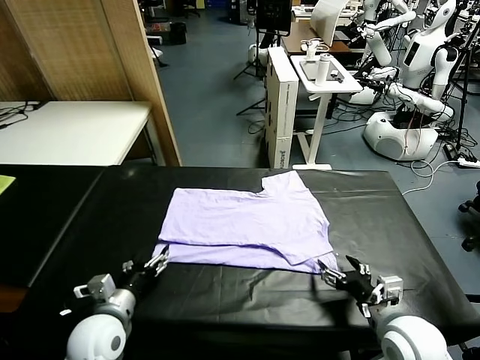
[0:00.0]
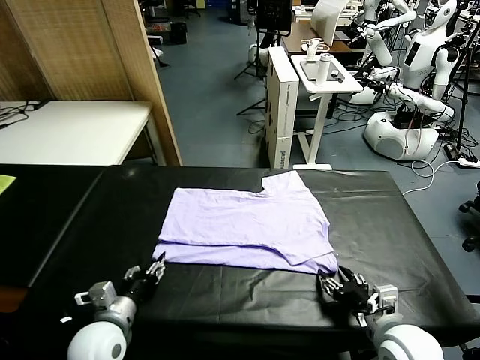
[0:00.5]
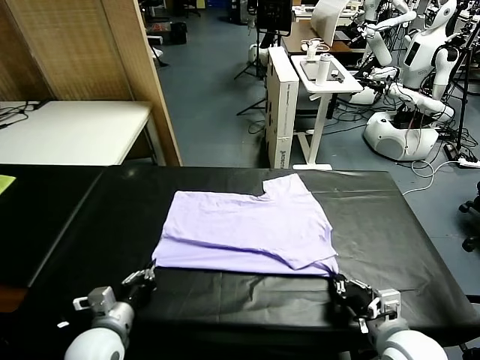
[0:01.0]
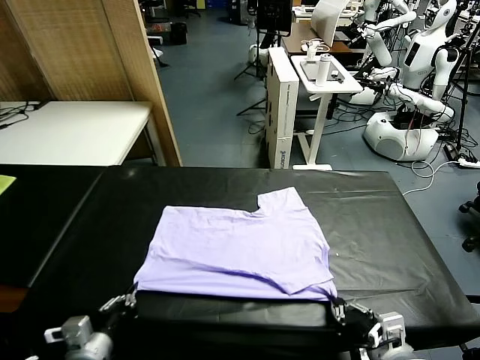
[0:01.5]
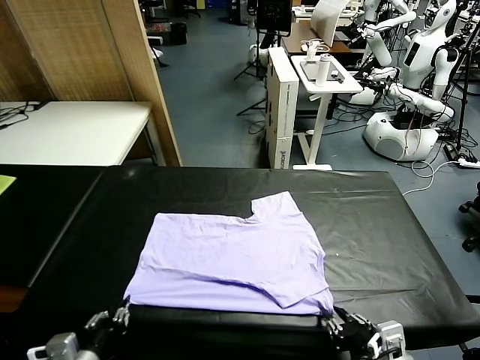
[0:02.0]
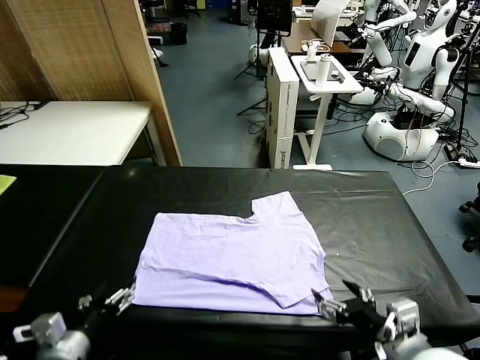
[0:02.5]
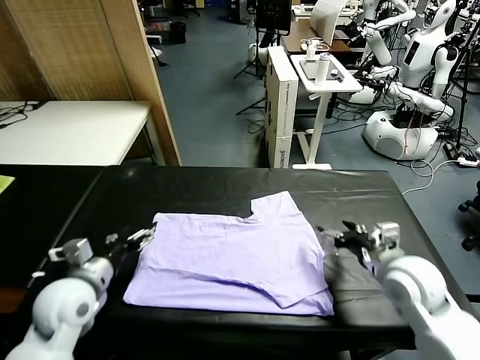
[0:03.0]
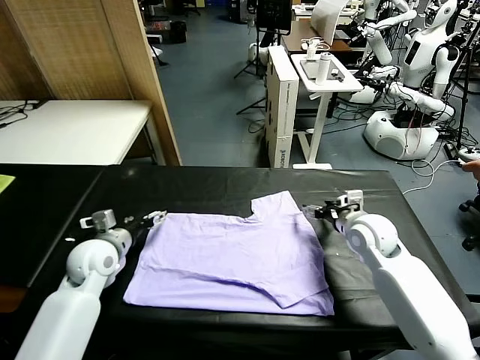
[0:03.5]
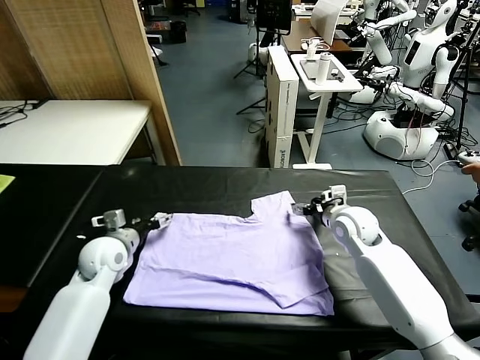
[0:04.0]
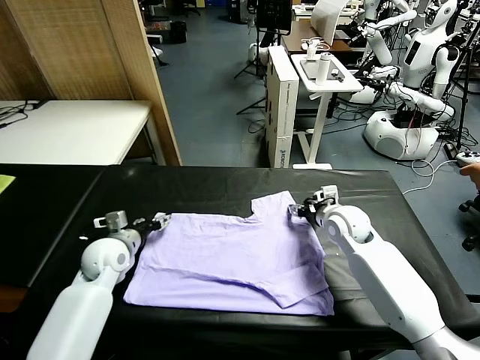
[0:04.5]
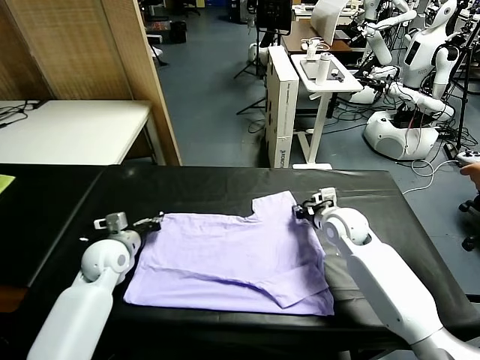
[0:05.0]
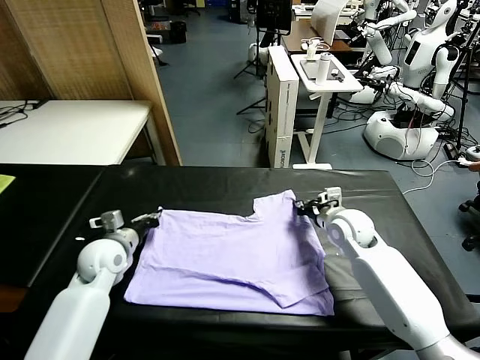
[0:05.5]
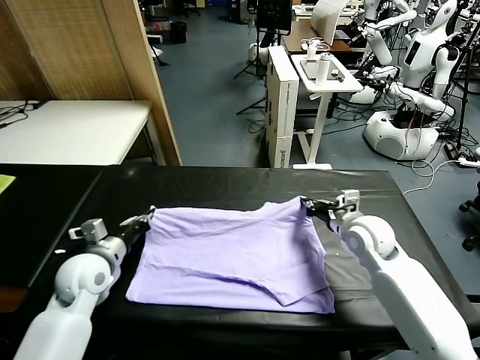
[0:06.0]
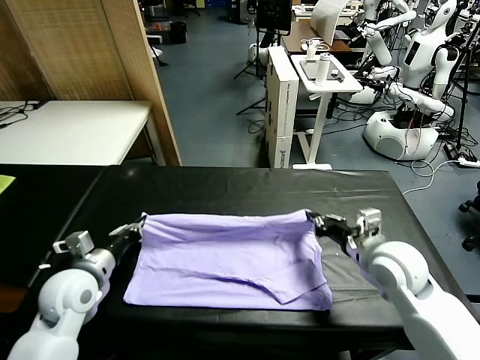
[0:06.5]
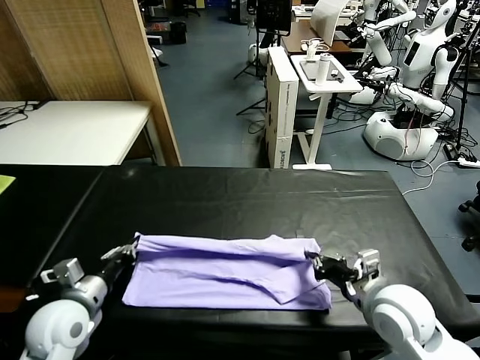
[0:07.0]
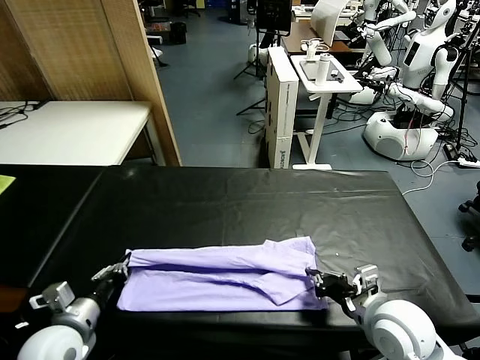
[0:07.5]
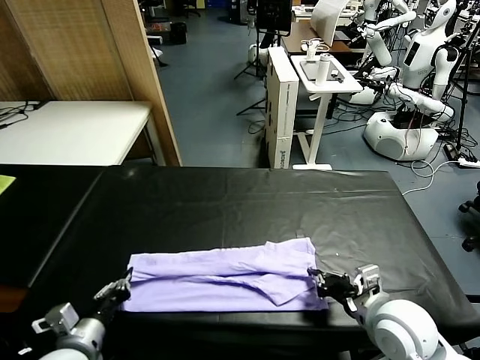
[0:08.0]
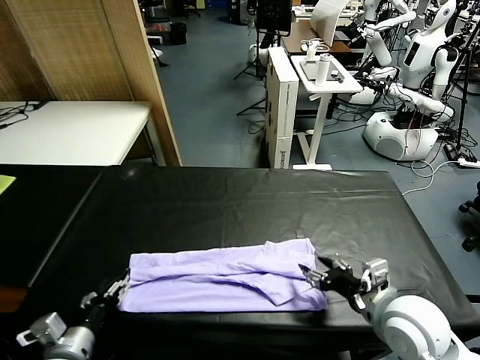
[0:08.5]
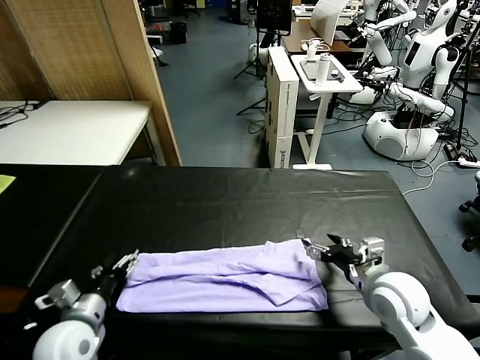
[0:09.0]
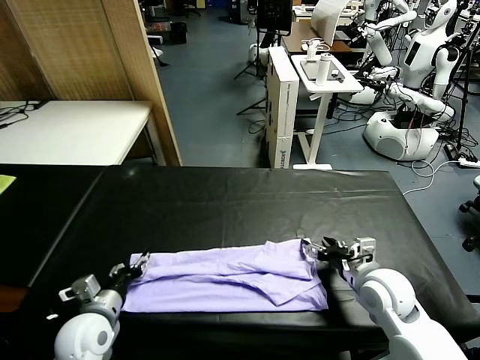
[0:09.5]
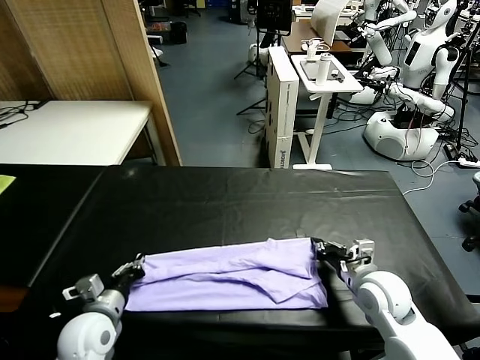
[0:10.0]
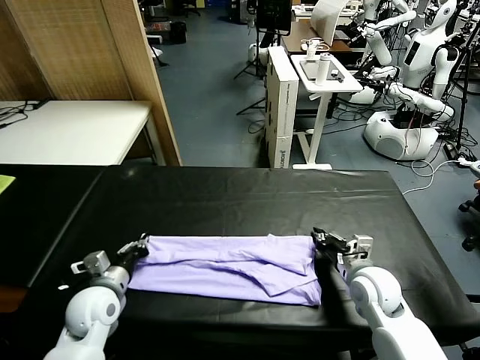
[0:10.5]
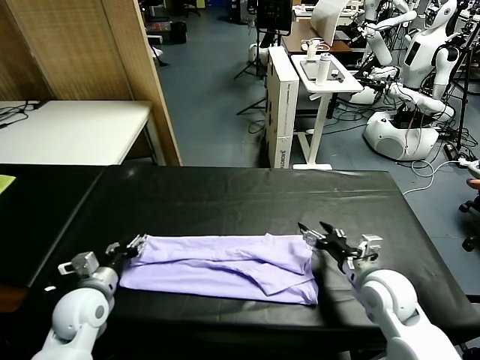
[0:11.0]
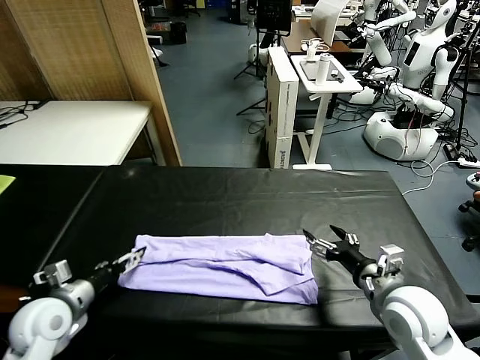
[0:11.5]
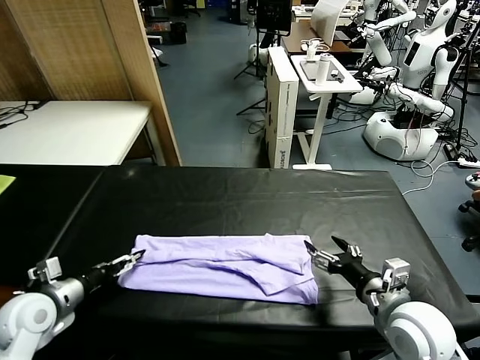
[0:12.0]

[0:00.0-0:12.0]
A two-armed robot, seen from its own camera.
Task of the whole recording: fold and organize the clothes.
Step, 0:00.0 to 0:02.0: Drag the clothes downward with both gripper.
Step, 0:02.5 to 0:05.0: use both grippers simultaneously to clamp the upper edge of the clothing fabric.
Step, 0:05.5 to 0:08.5: use both grippers to drag the upper edge of the fabric backward and fold it over the lower edge.
0:00.0 to 0:02.0: The right gripper goes some 10 cm backward and upward, and closes, then reopens. Meanwhile the left gripper is displaced backward by approximately 10 cm, and closes up.
0:02.0 to 0:04.0: The grippers both shift forward by approximately 30 cm.
0:04.0 to 0:06.0: The left gripper moves backward, approximately 5 cm, and closes. The right gripper travels backward by about 10 cm, and closes up.
0:06.0 to 0:08.0: The two grippers go some 15 cm backward.
0:08.0 to 0:10.0: The right gripper goes some 10 cm forward and downward, and opens, then closes again. The left gripper heads forward, covering about 10 cm, and opens and closes again.
0:10.0 to 0:12.0: The left gripper travels to the left by about 10 cm, and opens, while the right gripper travels backward and upward by roughly 10 cm, and opens up.

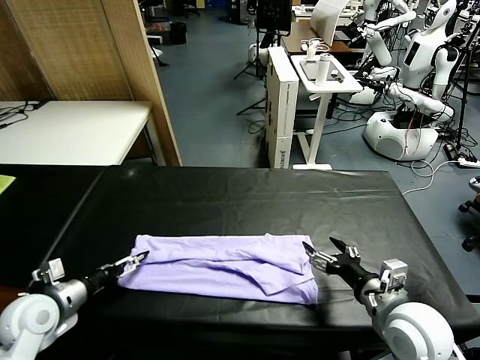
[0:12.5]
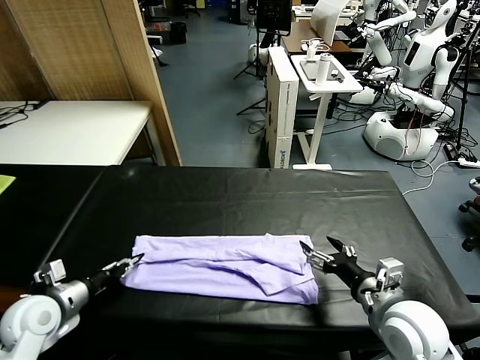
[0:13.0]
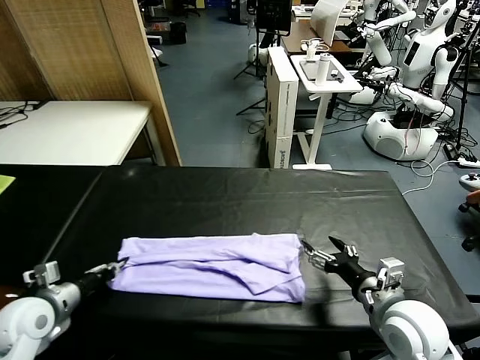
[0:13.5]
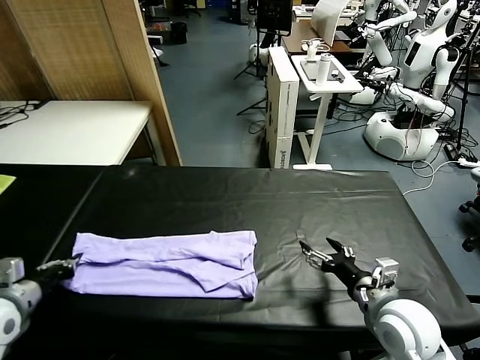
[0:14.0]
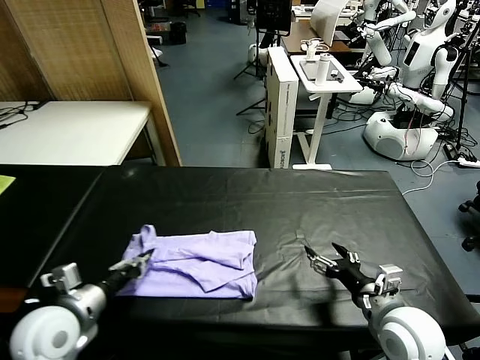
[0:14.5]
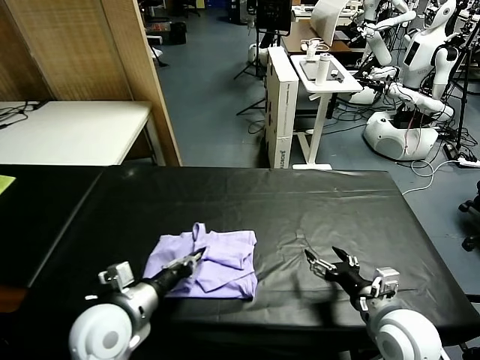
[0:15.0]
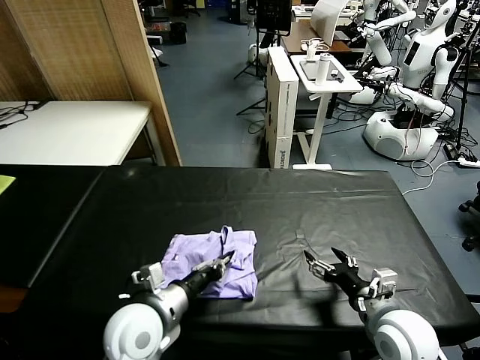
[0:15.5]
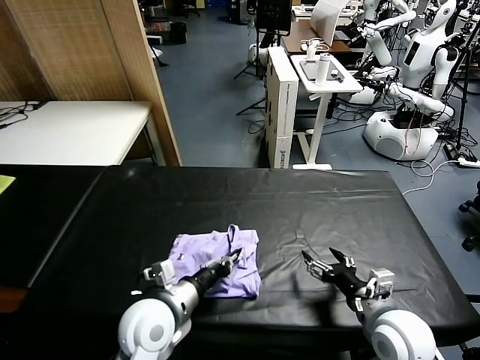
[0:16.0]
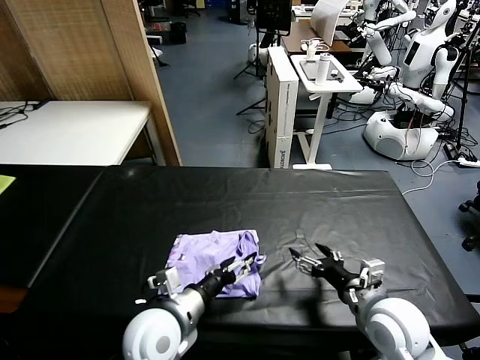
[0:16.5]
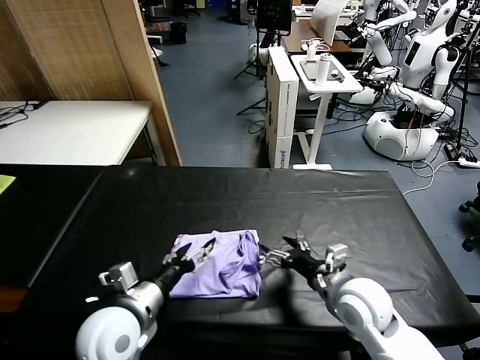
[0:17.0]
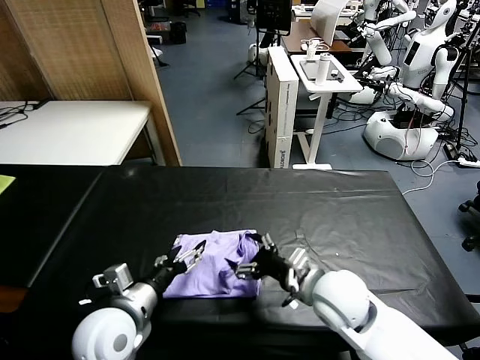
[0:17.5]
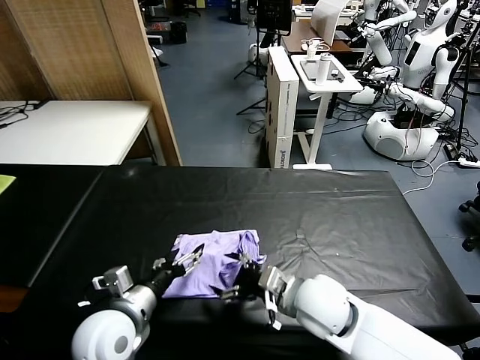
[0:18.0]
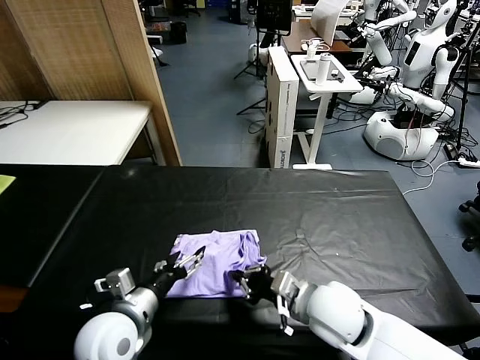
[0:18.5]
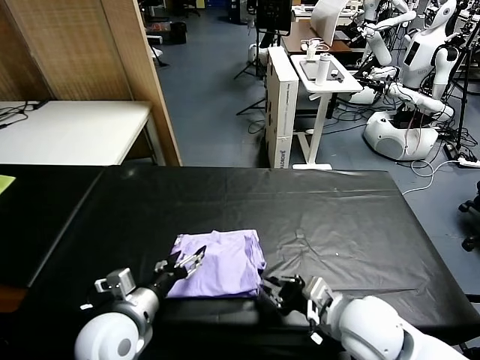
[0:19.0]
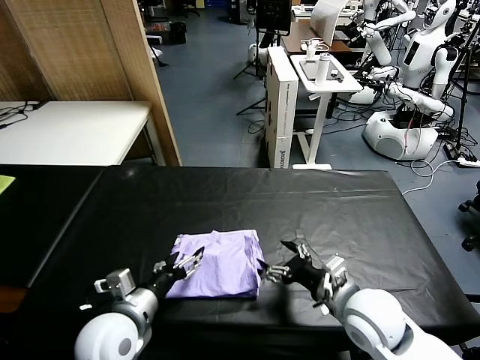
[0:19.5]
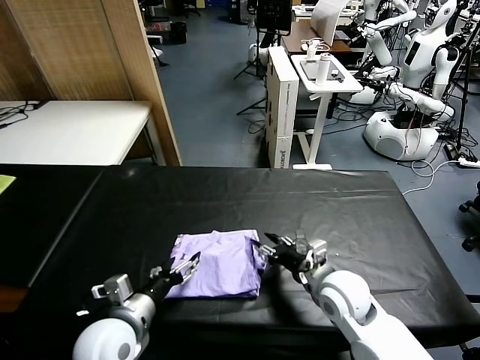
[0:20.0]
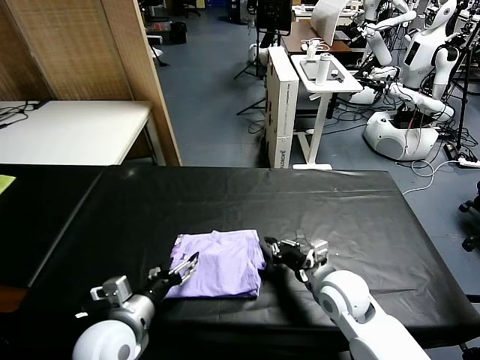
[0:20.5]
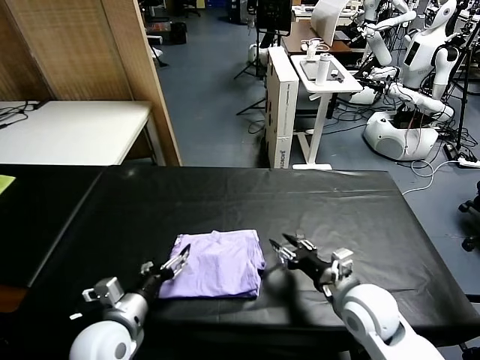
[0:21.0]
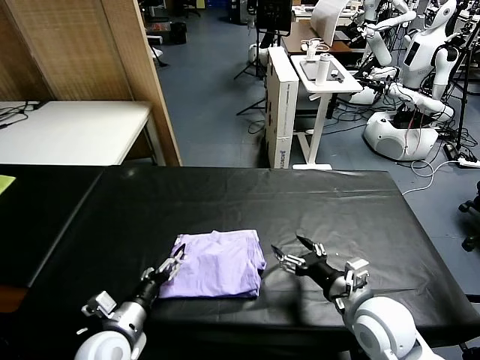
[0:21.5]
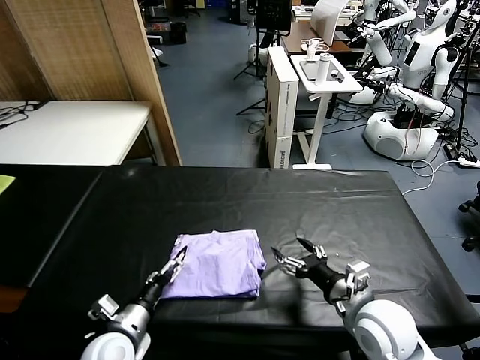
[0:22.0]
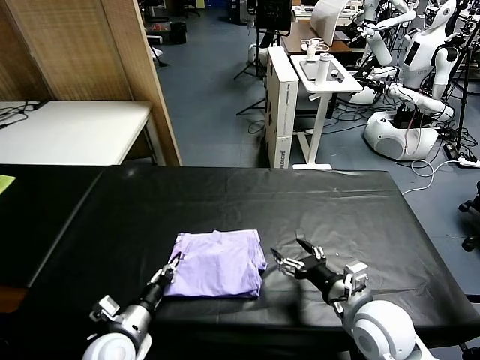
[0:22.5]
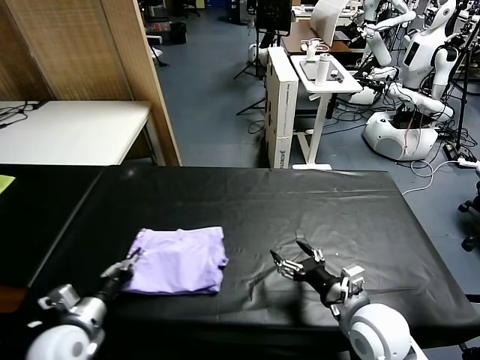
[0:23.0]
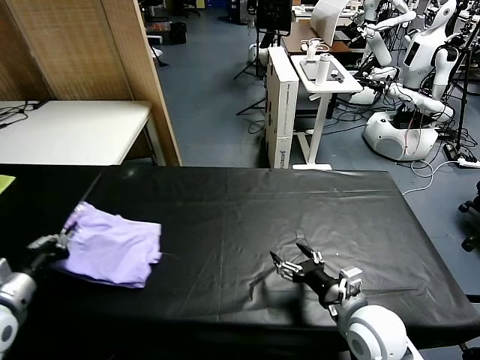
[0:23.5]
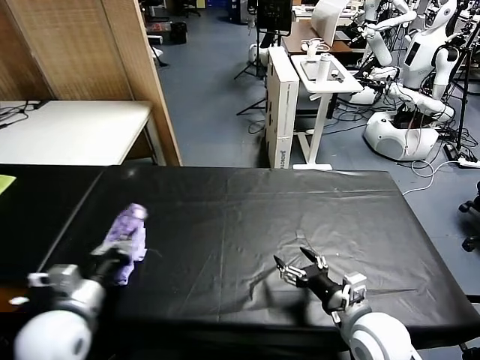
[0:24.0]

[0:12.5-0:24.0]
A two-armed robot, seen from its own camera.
Task of the whole recording: fold and organize the clothes.
Step, 0:13.5 to 0:16.5: use the left gripper to drag the left edge of the fabric to the left and folds it over the right edge.
0:12.5 to 0:14.5: The left gripper heads to the right, covering approximately 10 cm, and closes up.
0:14.5 to 0:16.5: The left gripper heads to the right, covering approximately 15 cm, and opens.
0:16.5 to 0:18.5: The grippers both shift to the left by roughly 5 cm. The right gripper closes its fingers.
0:18.5 to 0:20.0: The right gripper shifts roughly 5 cm forward, and opens and closes again.
0:20.0 to 0:22.0: The right gripper travels backward by approximately 5 cm, and opens its fingers. The left gripper moves downward, about 10 cm.
0:22.0 to 0:24.0: The left gripper travels upward by some 10 cm, goes to the left and returns, roughly 15 cm each way, and closes.

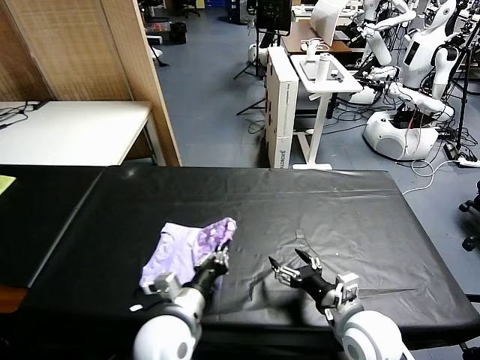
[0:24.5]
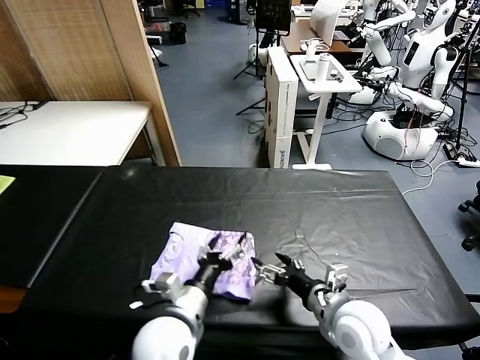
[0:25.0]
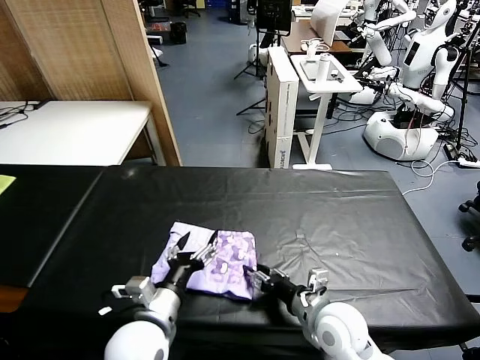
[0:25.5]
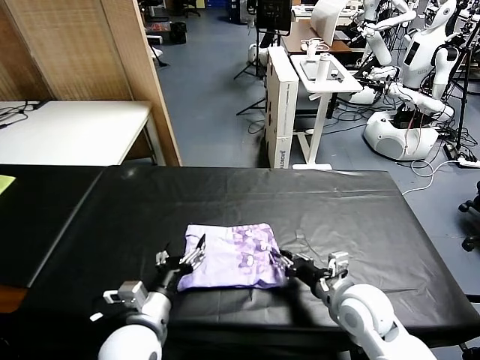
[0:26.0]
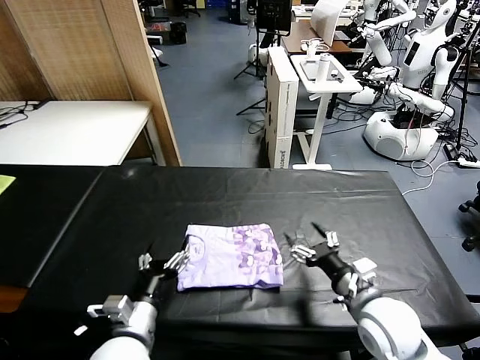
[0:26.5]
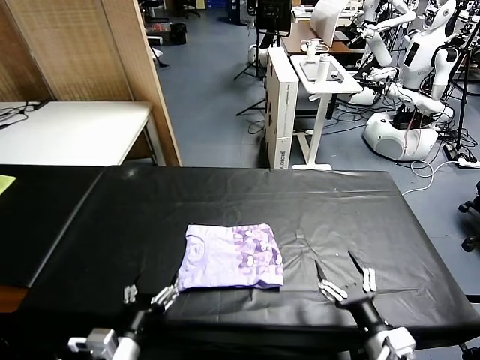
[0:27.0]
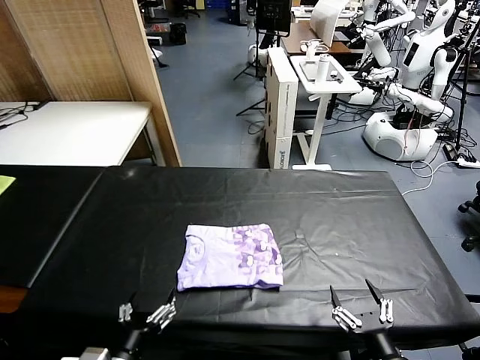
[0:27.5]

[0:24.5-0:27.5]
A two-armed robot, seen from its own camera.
Task of the whole recording: fold and organize the clothes.
Step, 0:25.5 to 0:26.0: Drag the clothes to the center of the table.
0:24.5 to 0:26.0: The left gripper goes about 5 cm to the left, and opens its fingers. Meanwhile the right gripper closes its fingers.
0:26.0 to 0:27.5: The left gripper shifts approximately 10 cm backward. The right gripper moves backward, approximately 20 cm, and opens its fingers.
